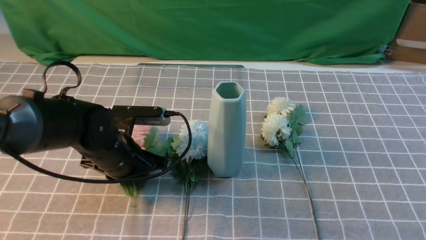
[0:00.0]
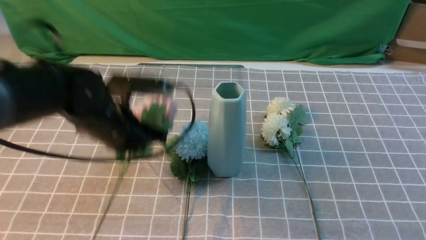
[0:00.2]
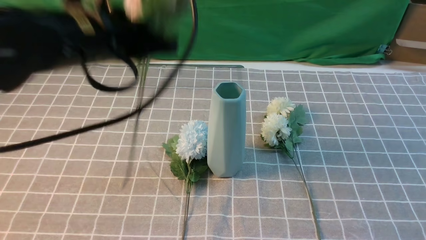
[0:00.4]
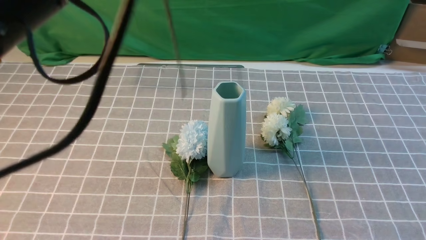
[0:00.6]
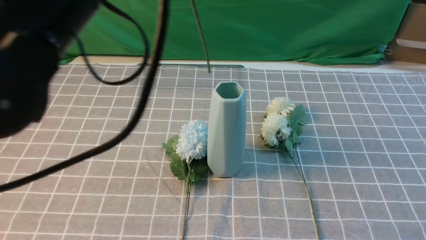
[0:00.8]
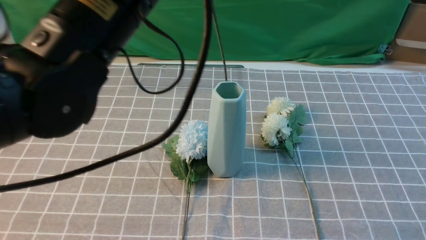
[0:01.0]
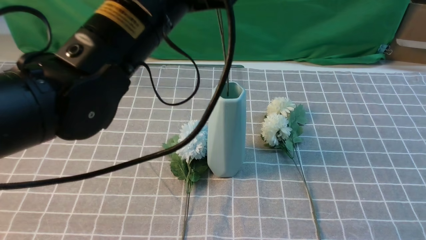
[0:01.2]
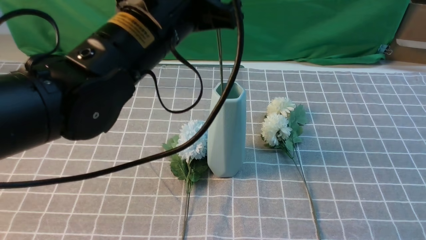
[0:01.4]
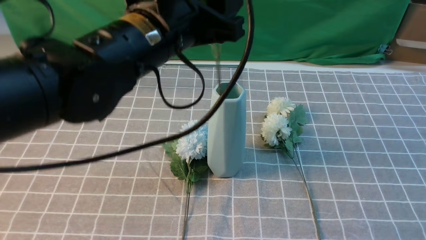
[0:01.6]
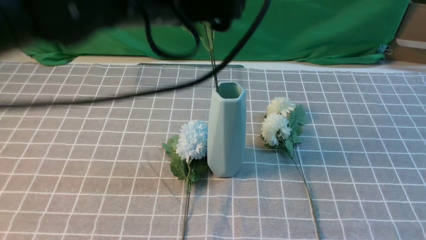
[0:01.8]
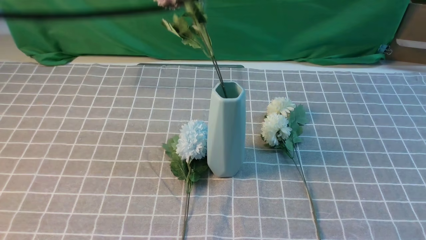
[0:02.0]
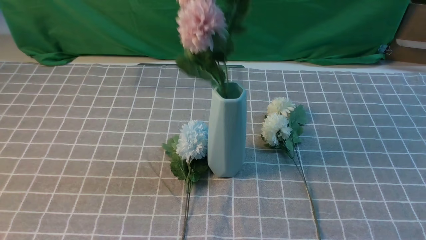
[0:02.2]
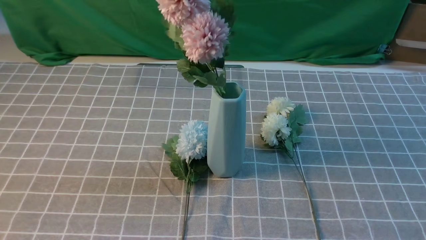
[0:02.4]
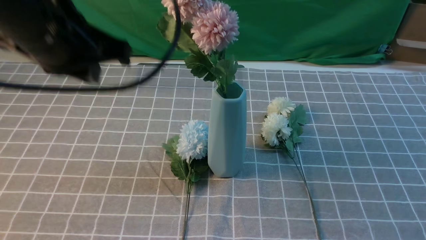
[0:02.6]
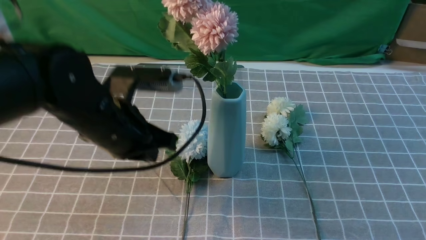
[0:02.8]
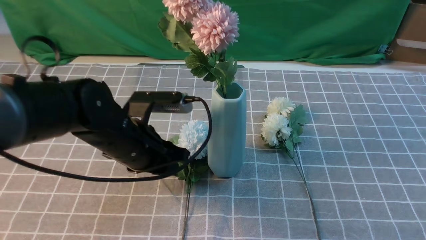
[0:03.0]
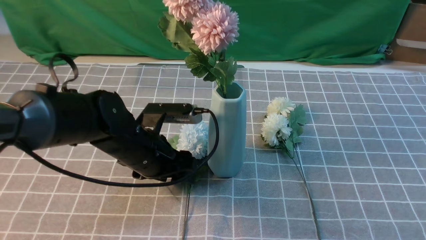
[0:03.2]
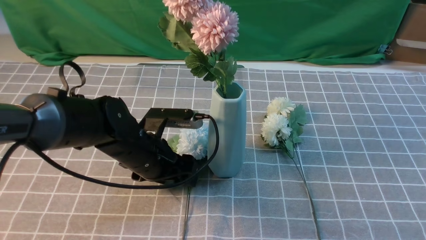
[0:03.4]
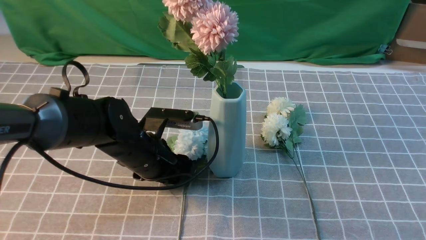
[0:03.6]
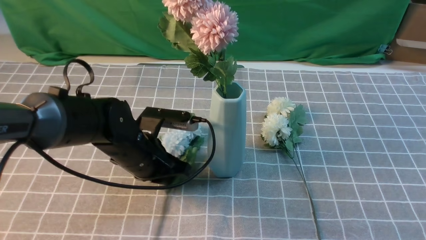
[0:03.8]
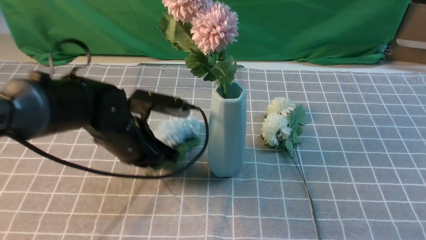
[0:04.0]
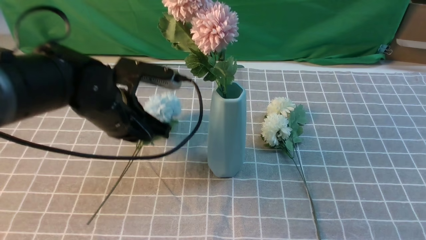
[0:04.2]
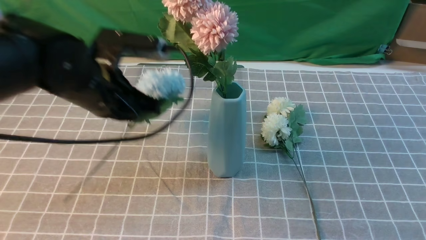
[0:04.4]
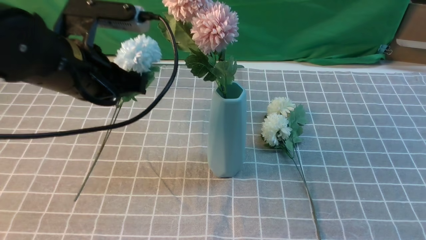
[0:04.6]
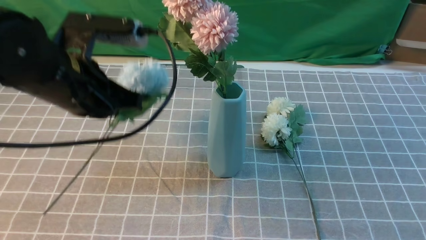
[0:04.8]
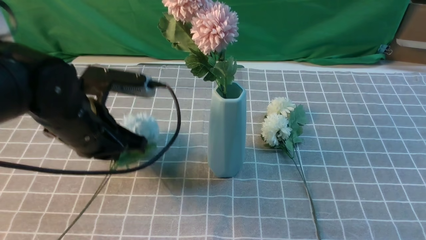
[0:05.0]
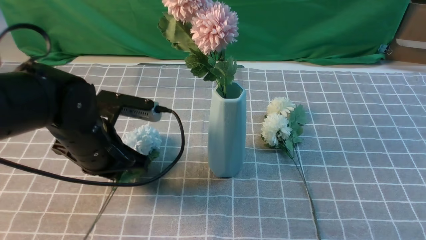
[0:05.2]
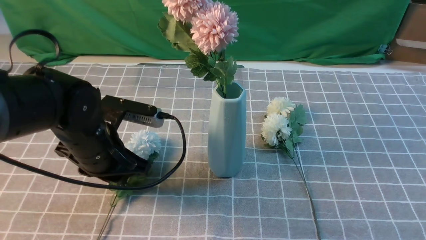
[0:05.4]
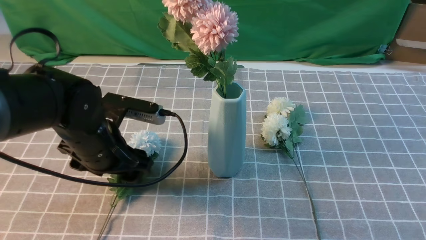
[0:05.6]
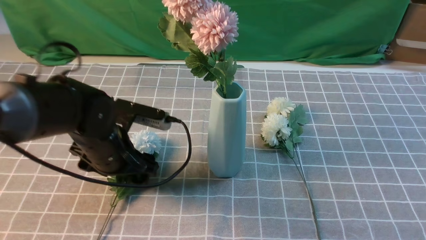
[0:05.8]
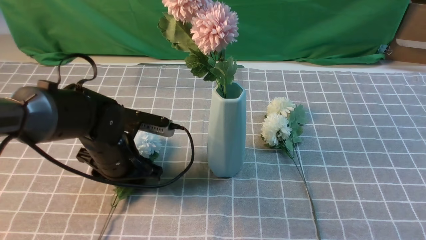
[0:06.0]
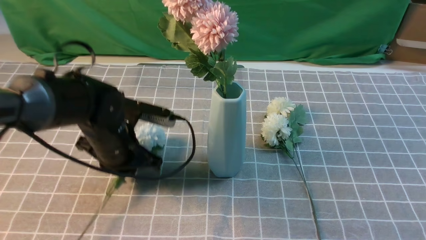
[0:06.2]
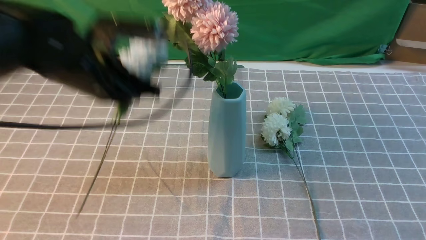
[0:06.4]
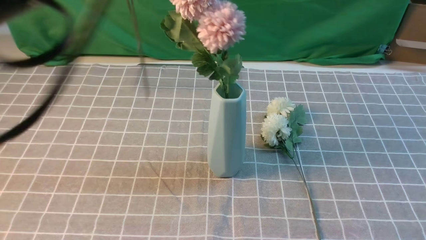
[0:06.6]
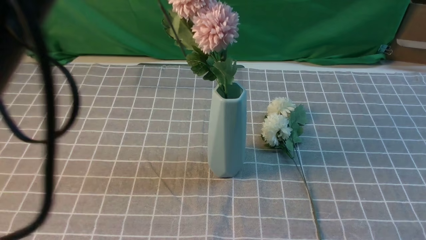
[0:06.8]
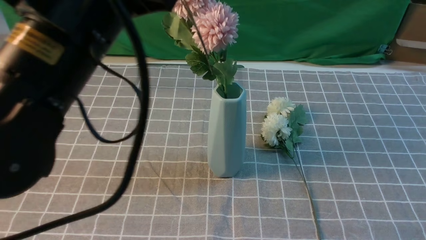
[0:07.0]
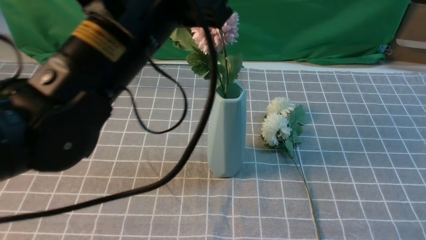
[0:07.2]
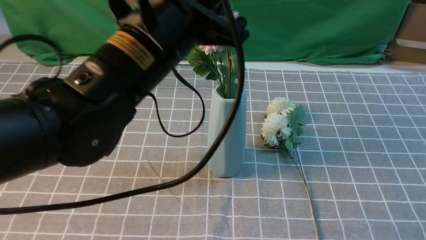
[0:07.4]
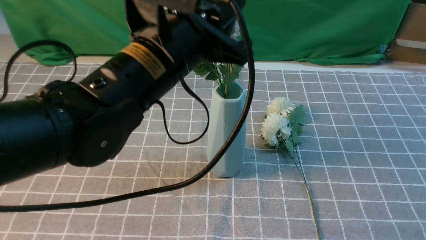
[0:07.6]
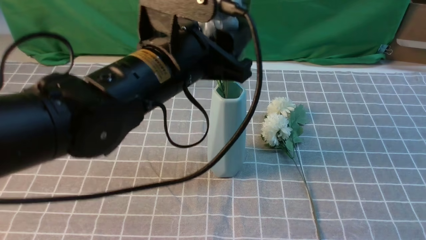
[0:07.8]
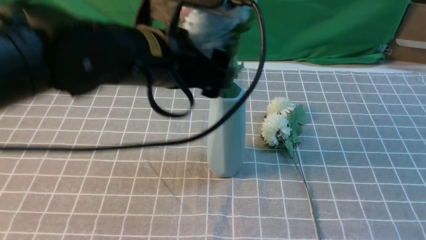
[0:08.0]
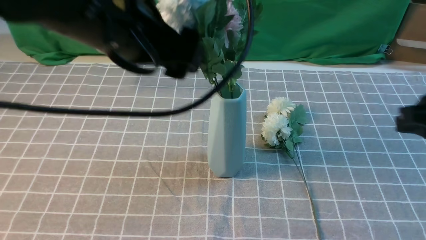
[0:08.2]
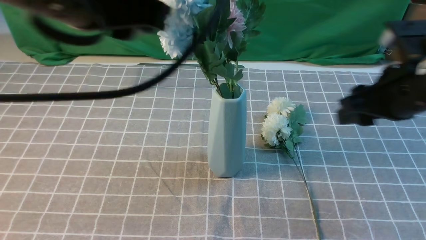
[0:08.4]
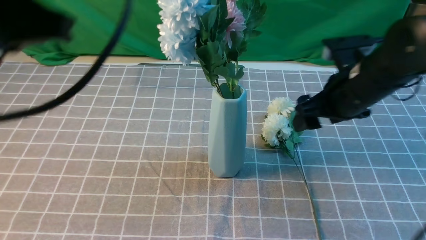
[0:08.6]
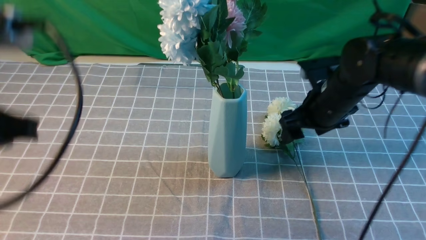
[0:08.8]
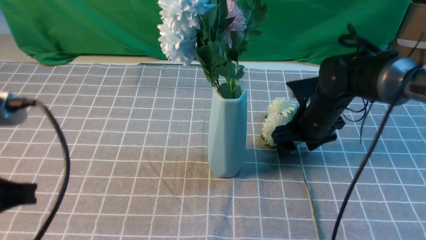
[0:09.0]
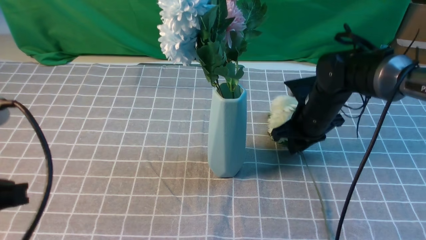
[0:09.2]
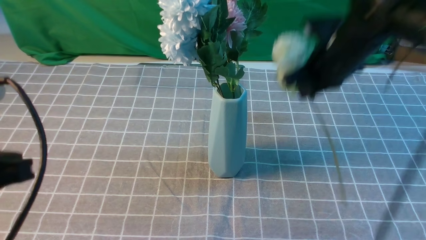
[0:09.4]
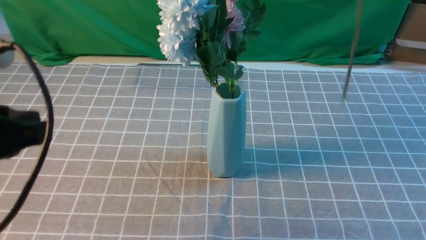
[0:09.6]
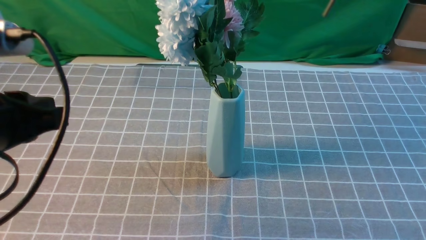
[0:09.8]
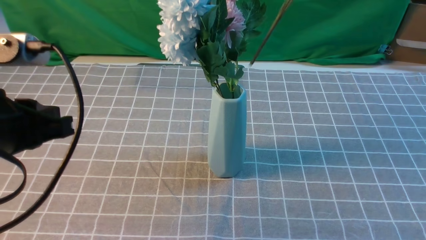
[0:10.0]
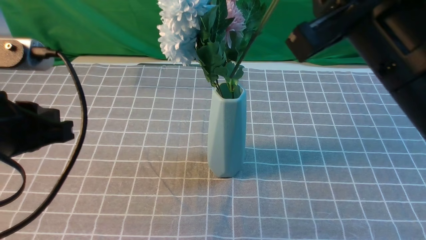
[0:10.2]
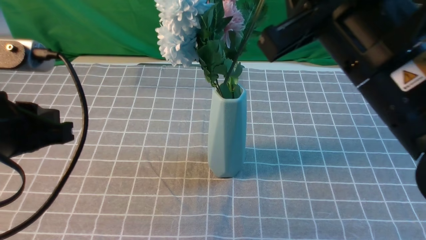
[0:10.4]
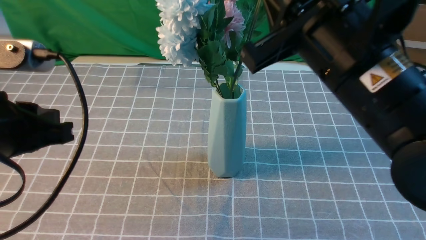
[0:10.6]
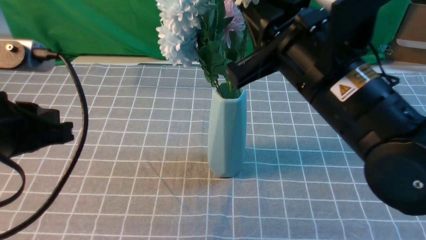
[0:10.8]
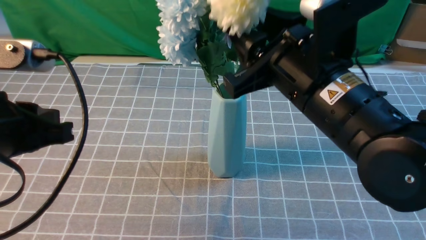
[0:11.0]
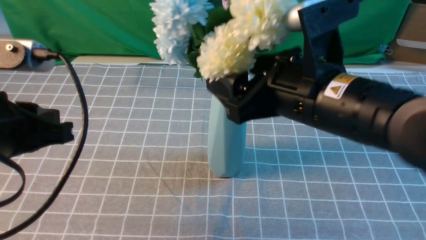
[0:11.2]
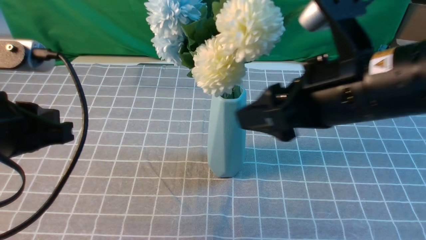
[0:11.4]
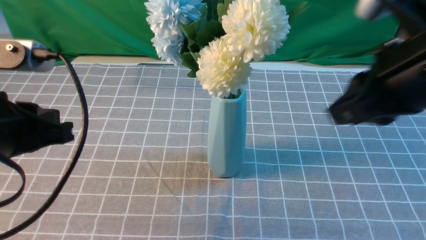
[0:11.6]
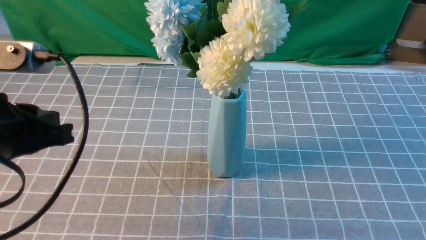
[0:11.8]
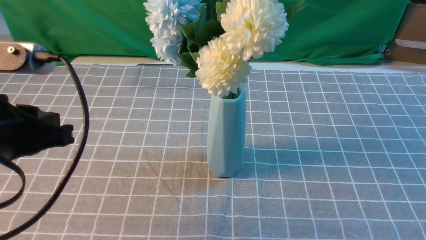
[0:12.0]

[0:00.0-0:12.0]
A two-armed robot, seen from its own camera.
Task of the whole recording: insert the flowers into the vase on the table with the grey tablecloth.
Step, 0:00.2 to 0:02.0: use the left arm to insert the flowers into the vase.
Step, 0:02.2 to 0:06.2: use the left arm to grab a bunch of fresh flowers.
Step, 0:06.4 to 0:08.2: use the left arm to insert the flowers into the vase.
Step, 0:08.4 to 0:09.0: use the right arm to grab a bunch of fresh flowers.
Step, 0:09.2 to 0:11.2: use the right arm to insert the flowers into the vase.
0:00.0 to 0:01.6: The left gripper heads upward, covering some 20 cm, and closes, then opens again.
0:01.6 to 0:03.0: The left gripper travels downward by some 15 cm, and opens, then closes again.
0:03.0 to 0:04.4: The left gripper shifts by some 5 cm, and opens, then closes again.
0:04.4 to 0:06.0: The left gripper travels downward by some 10 cm, and opens up.
0:06.0 to 0:07.6: The left gripper travels upward and to the right by approximately 20 cm, and closes up.
0:07.6 to 0:09.0: The right gripper travels forward, downward and to the left by approximately 35 cm, and opens; the left gripper is displaced to the left and backward by roughly 20 cm, and opens and closes again.
0:09.0 to 0:10.4: The right gripper is displaced upward and backward by some 30 cm, and closes up.
0:10.4 to 0:12.0: The right gripper is displaced to the right, backward and upward by some 15 cm, and opens, then closes again.

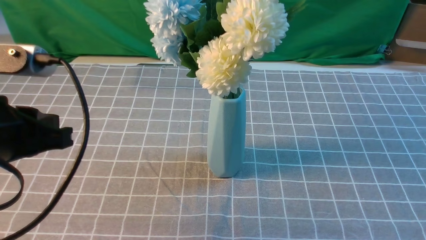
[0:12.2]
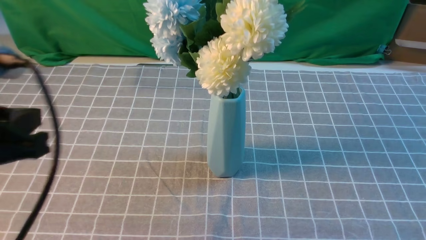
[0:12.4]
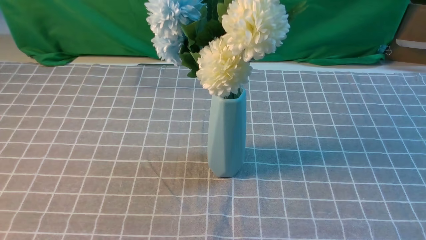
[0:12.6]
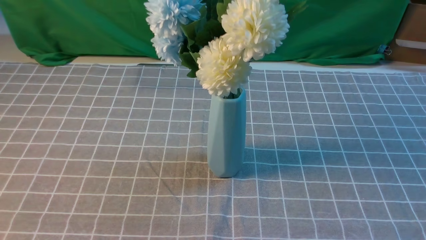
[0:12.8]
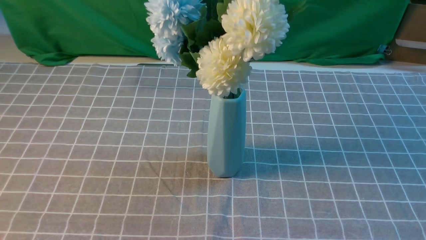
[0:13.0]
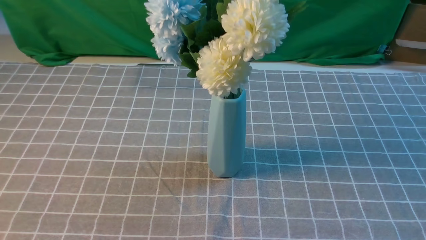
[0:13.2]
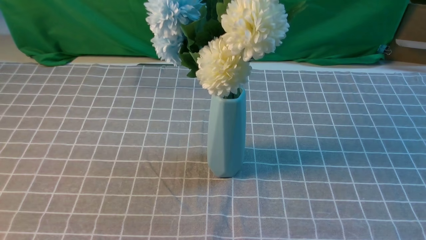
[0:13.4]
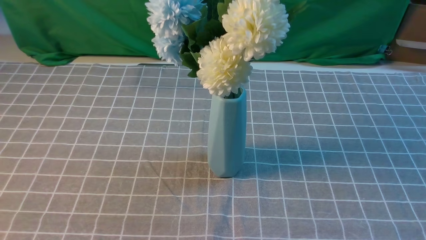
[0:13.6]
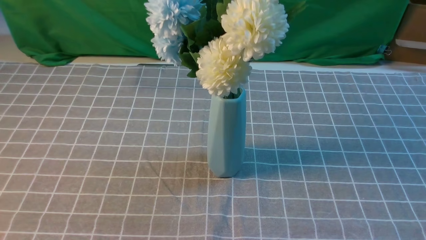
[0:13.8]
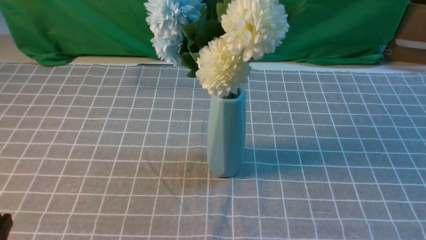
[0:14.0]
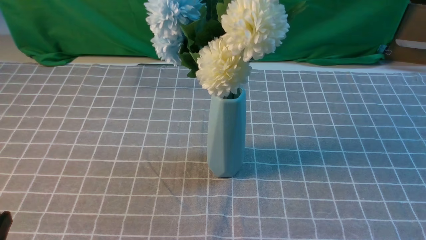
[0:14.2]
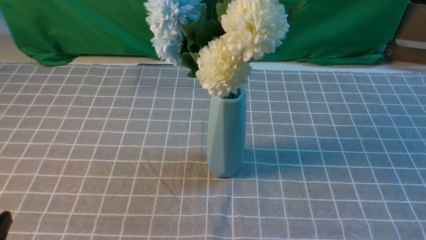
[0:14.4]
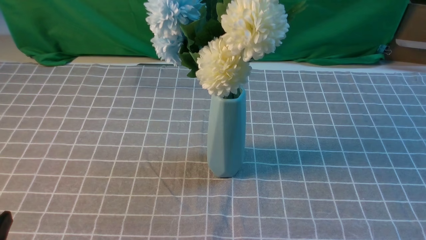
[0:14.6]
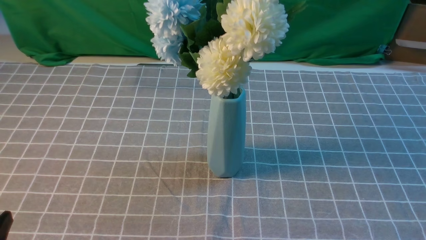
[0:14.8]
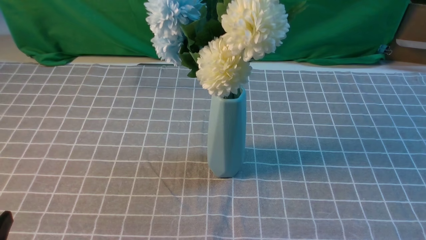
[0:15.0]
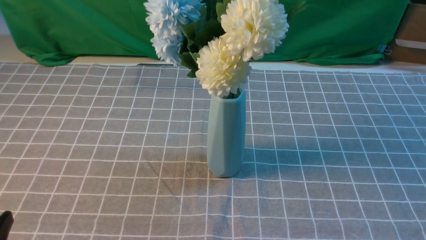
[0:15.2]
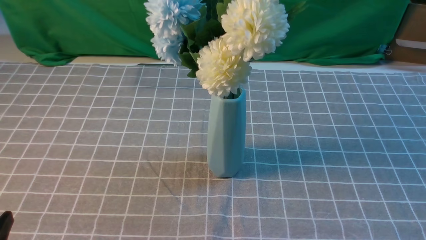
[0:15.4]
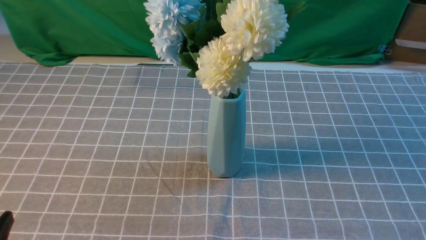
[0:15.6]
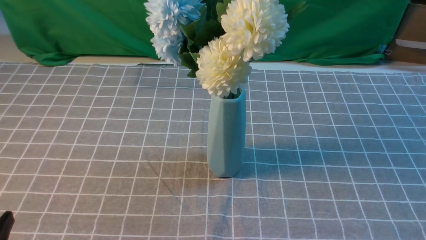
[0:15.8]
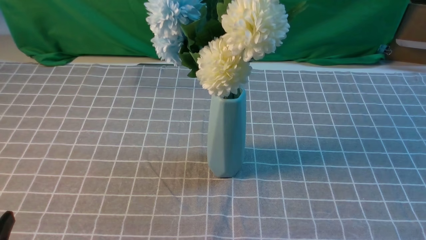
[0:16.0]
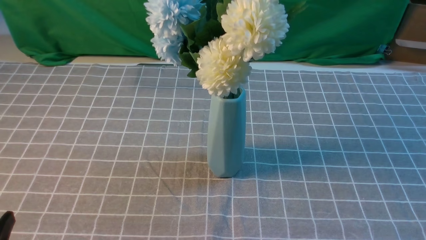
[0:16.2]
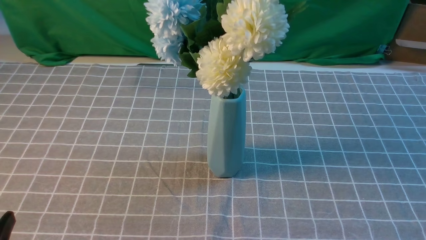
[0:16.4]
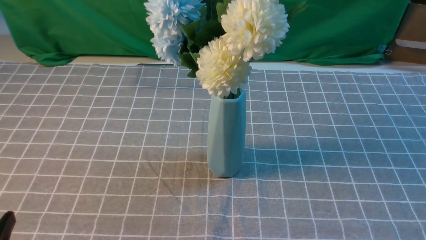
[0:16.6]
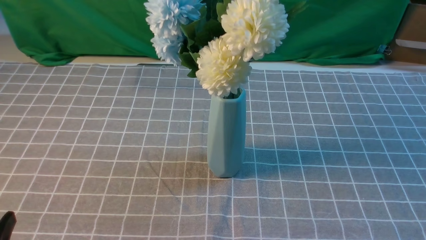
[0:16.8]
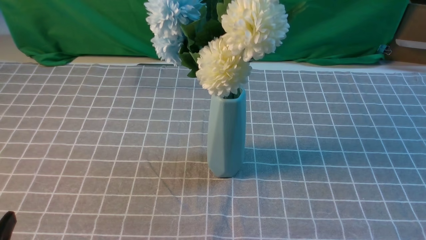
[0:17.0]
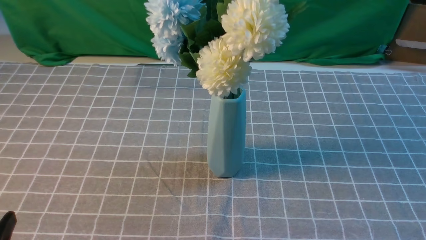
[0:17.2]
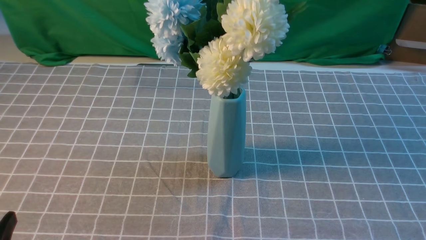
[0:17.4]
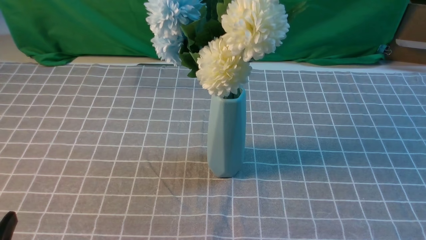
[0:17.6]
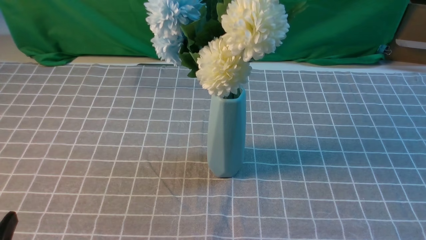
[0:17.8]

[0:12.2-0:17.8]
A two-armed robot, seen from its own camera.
Task of the whole recording: insert the flowers into the vase on the table with the grey tablecloth.
0:12.2 to 0:13.6: The right gripper moves downward, about 10 cm; the left gripper is displaced backward by about 15 cm.
0:16.4 to 0:17.8: The two grippers keep their place.
